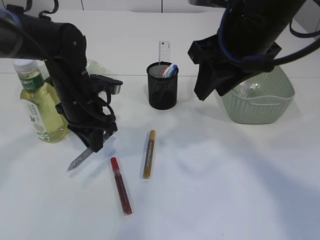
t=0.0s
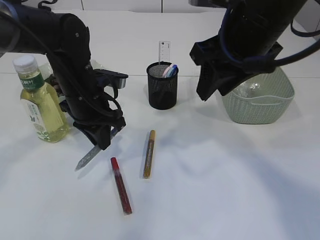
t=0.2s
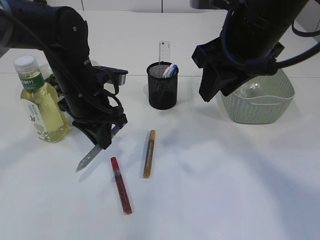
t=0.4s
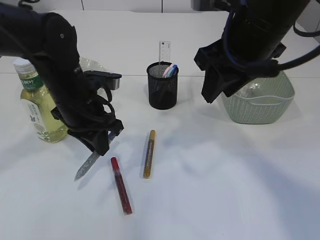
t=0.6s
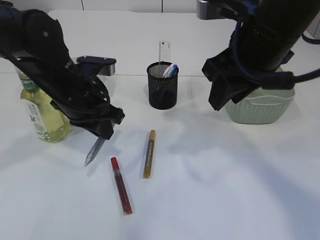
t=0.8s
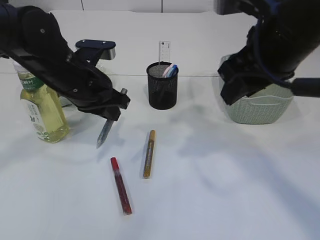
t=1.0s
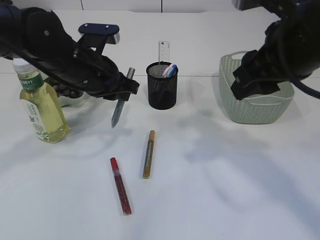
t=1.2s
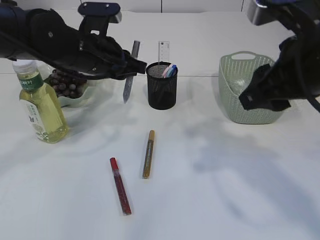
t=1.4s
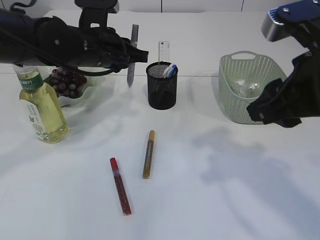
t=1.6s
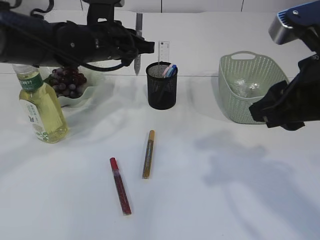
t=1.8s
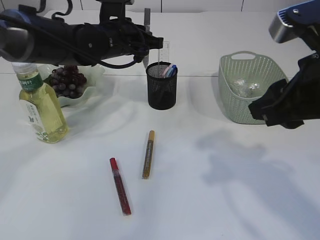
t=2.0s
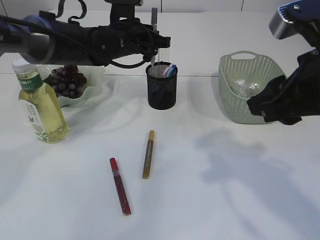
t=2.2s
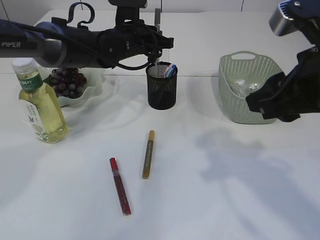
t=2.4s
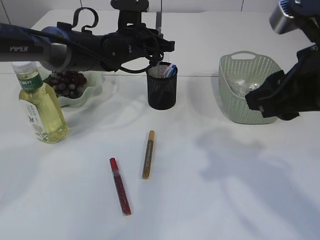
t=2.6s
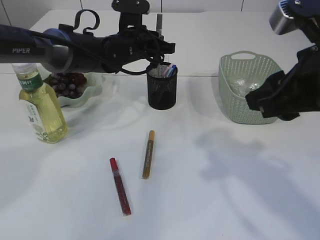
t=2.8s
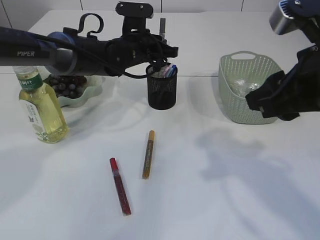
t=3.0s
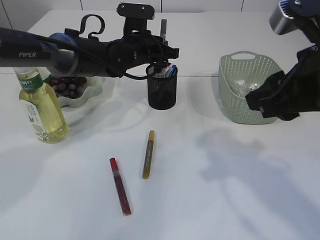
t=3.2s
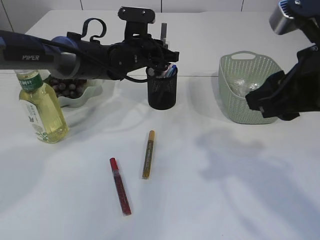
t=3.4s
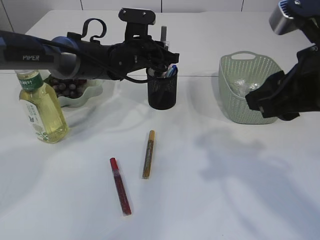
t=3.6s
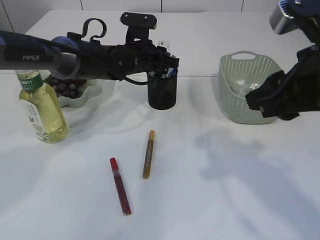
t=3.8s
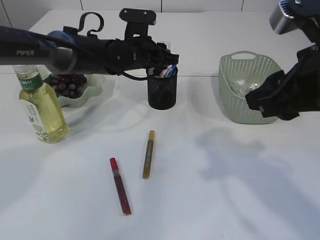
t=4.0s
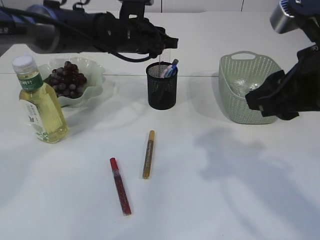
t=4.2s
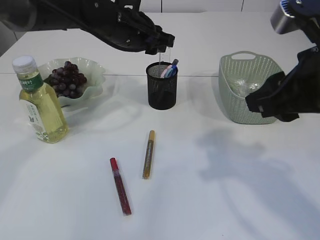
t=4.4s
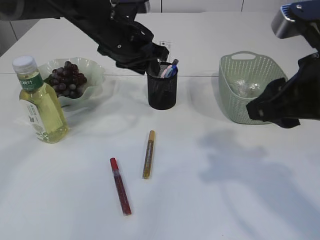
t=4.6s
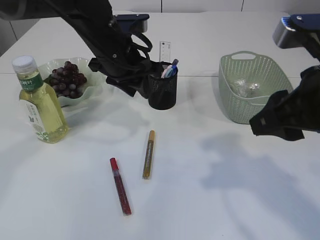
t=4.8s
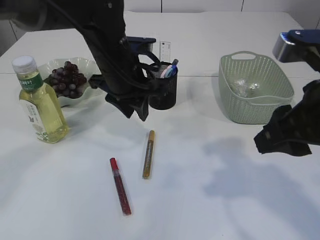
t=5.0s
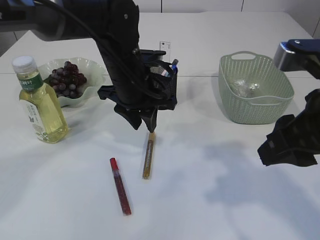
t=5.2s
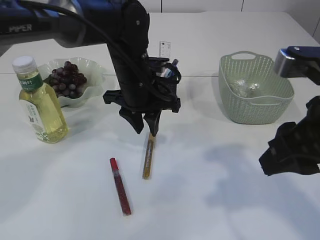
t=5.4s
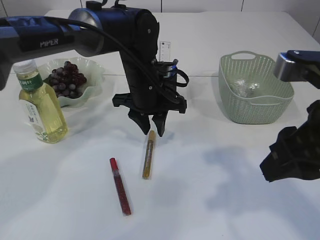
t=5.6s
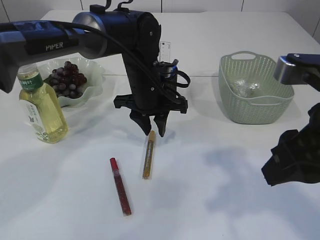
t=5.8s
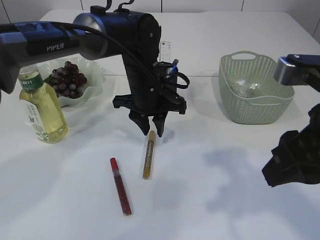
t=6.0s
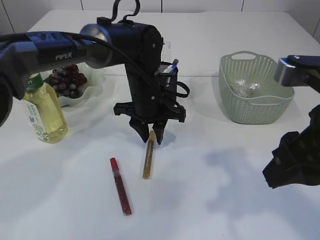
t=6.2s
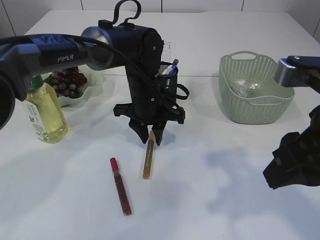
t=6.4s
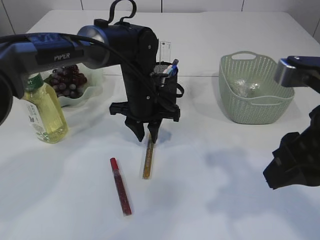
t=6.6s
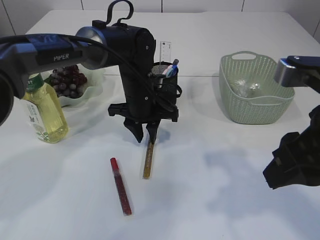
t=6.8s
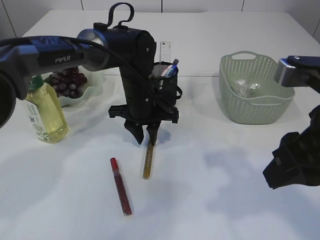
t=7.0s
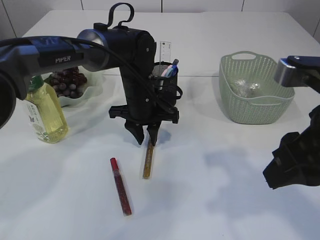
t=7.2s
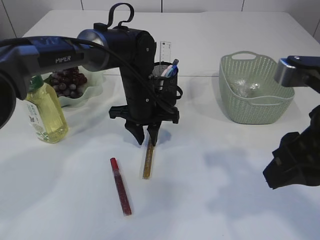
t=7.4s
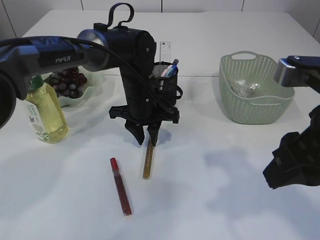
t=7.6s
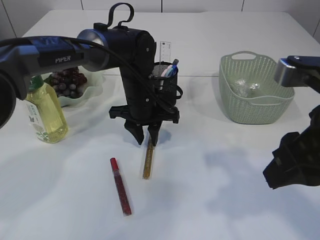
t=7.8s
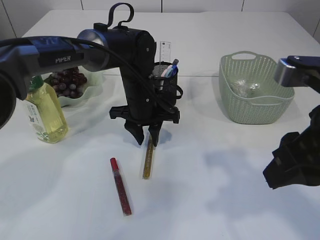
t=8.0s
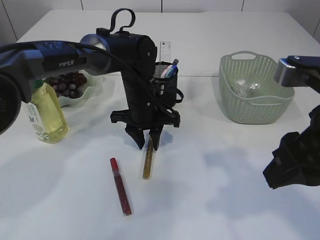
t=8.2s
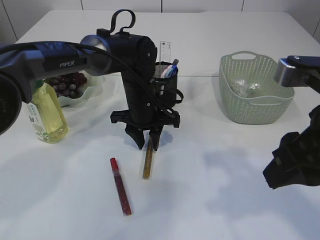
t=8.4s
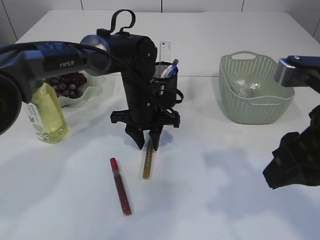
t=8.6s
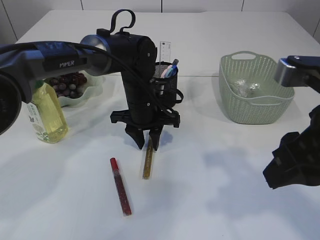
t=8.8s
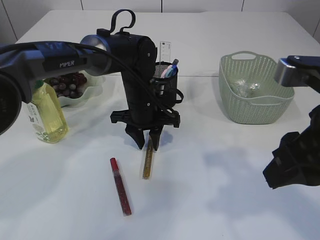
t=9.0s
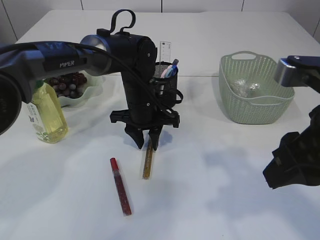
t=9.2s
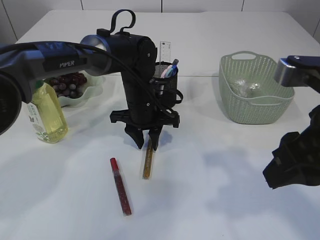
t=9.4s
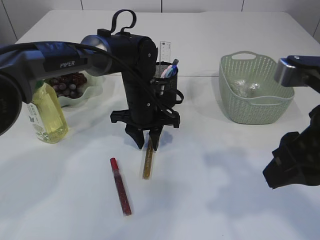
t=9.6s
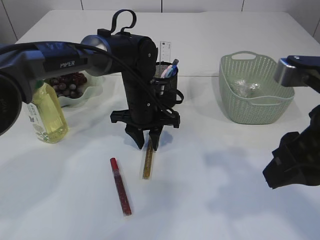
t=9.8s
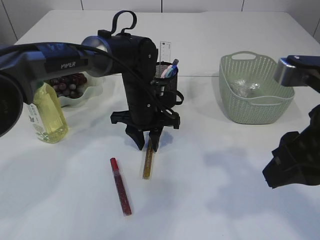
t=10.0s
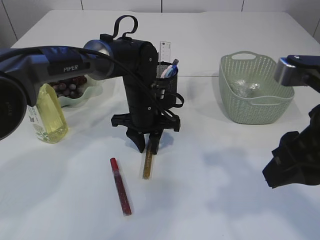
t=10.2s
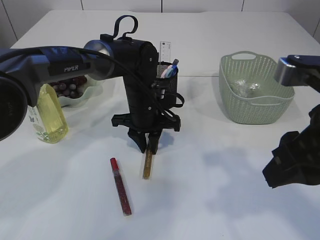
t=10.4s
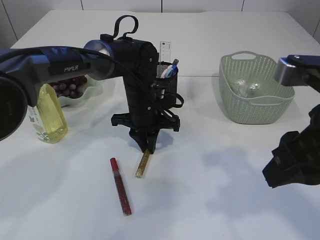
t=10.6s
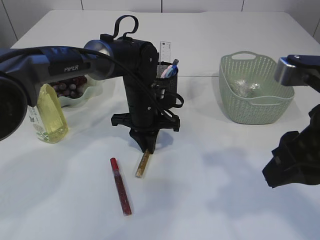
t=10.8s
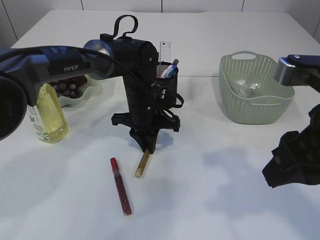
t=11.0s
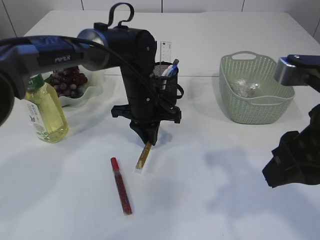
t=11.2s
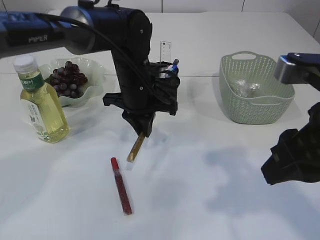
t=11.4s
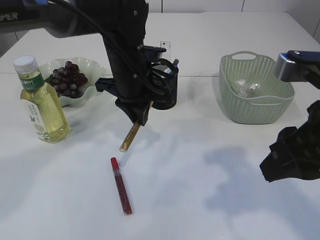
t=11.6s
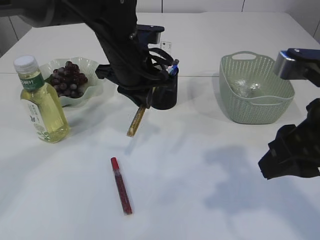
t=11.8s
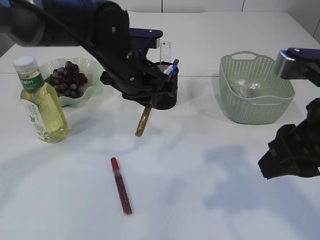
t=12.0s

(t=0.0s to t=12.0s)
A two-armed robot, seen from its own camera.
Step, t=0.6s - t=4.4s: place the silver glue into the pen holder.
Step, t=4.6s - t=11.6s: pick up the yellow glue.
t=0.0s - t=1.6s: The left gripper shifts about 10 cm upward. Meanwhile the right gripper travels backward and to the right by some 10 cm.
t=1.6s - t=3.0s: The left gripper shifts about 10 cm forward and to the right.
t=3.0s - t=4.4s: The left gripper moves upward, some 5 cm.
t=4.4s - t=6.0s: The left gripper shifts some 10 cm downward.
t=6.0s - t=7.6s: The grippers stay close to where they were, moving slightly.
t=7.6s - t=9.0s: Both grippers stay about where they are.
t=9.0s - t=10.4s: Neither gripper changes place.
t=10.4s - t=12.0s: The left gripper travels upward by roughly 10 cm.

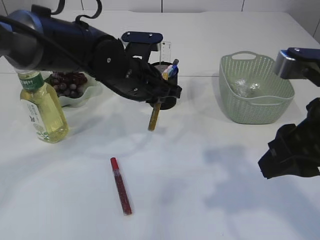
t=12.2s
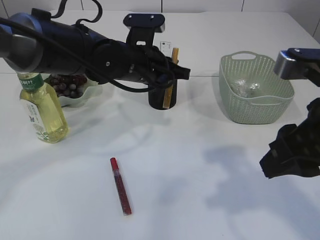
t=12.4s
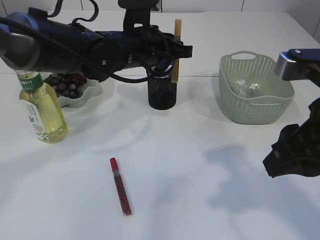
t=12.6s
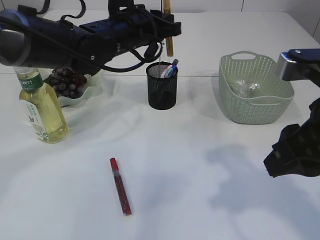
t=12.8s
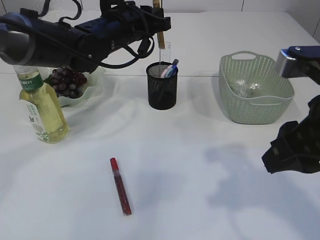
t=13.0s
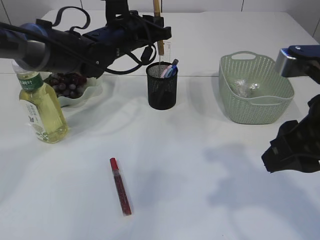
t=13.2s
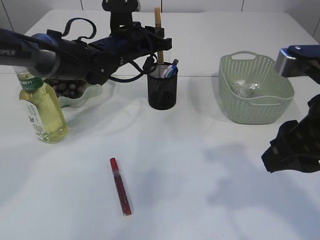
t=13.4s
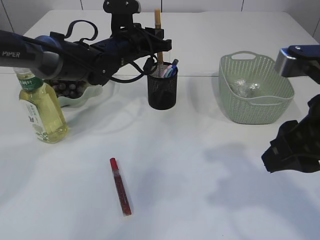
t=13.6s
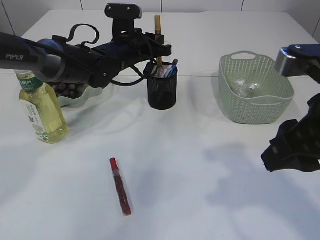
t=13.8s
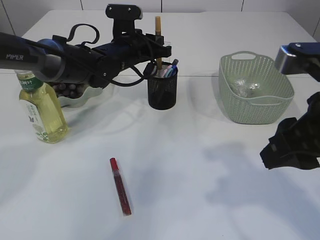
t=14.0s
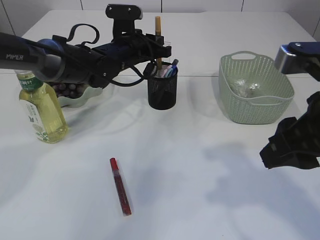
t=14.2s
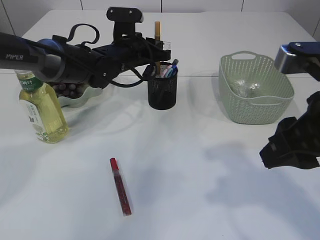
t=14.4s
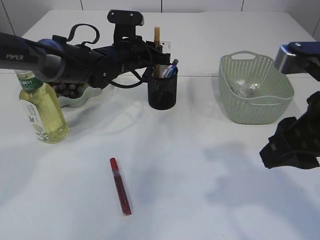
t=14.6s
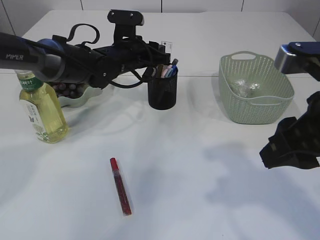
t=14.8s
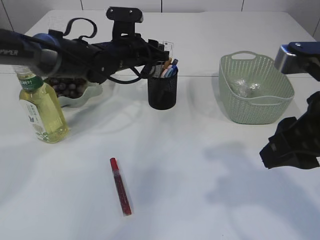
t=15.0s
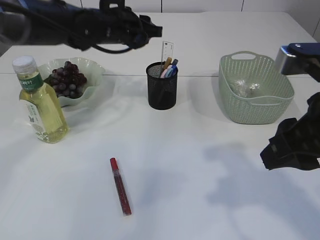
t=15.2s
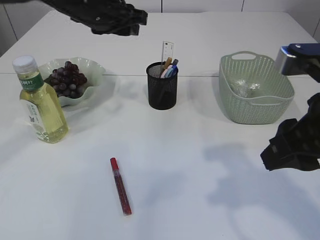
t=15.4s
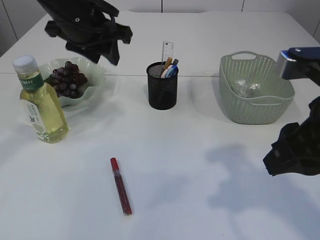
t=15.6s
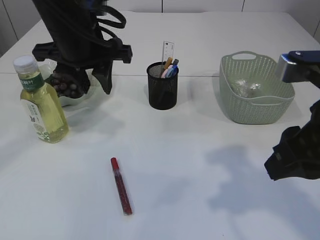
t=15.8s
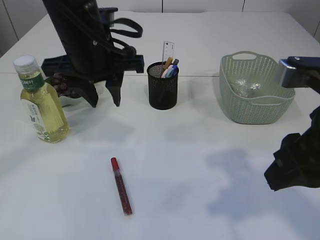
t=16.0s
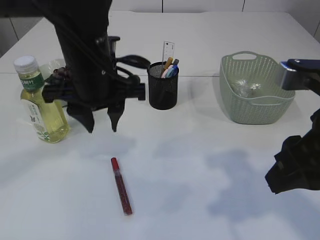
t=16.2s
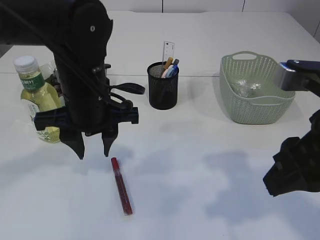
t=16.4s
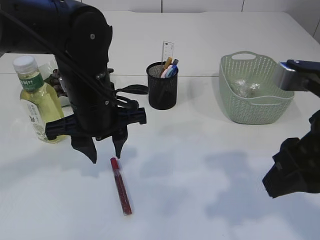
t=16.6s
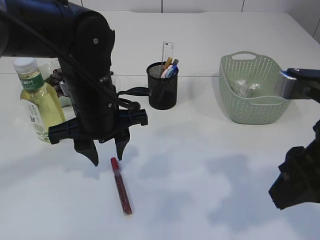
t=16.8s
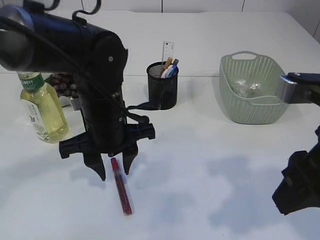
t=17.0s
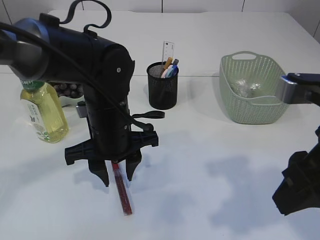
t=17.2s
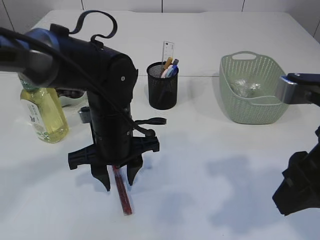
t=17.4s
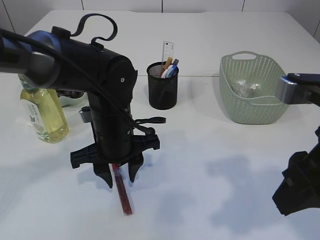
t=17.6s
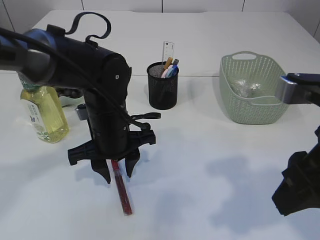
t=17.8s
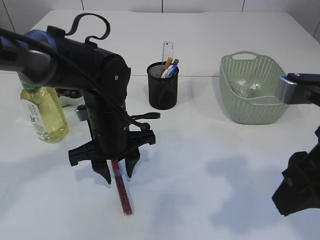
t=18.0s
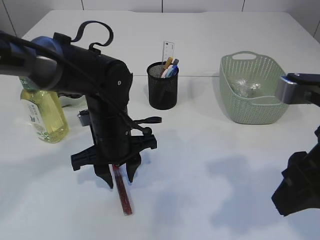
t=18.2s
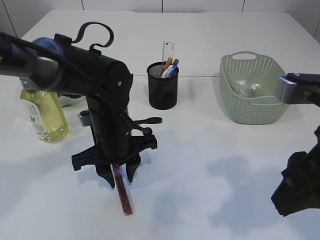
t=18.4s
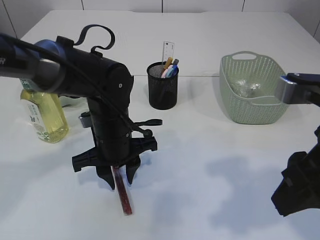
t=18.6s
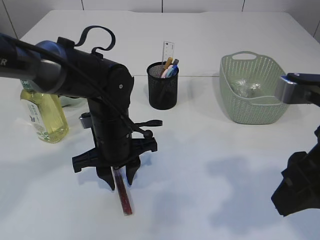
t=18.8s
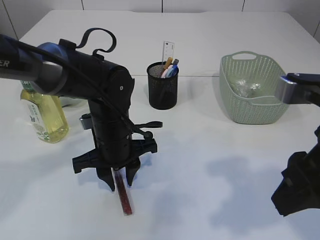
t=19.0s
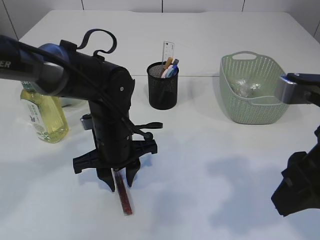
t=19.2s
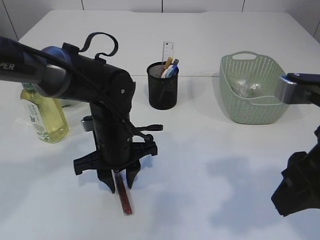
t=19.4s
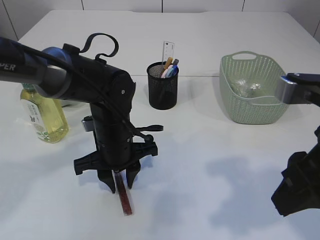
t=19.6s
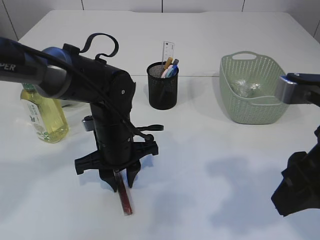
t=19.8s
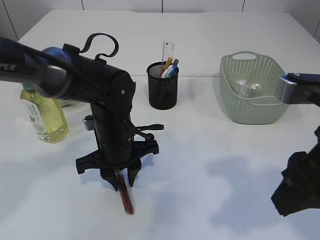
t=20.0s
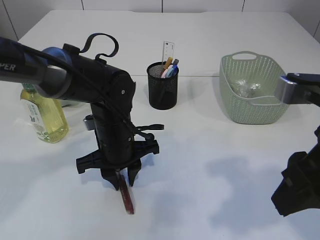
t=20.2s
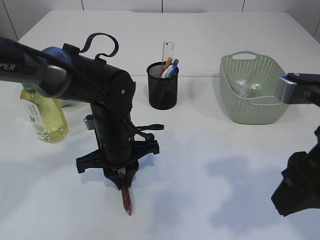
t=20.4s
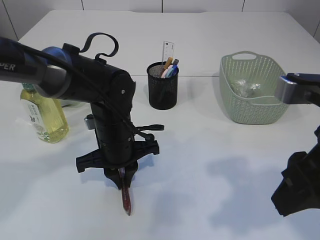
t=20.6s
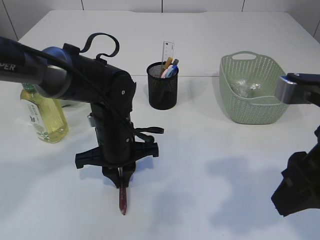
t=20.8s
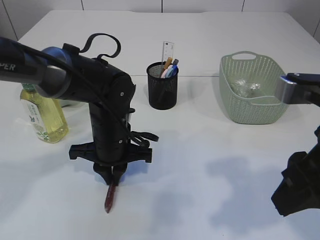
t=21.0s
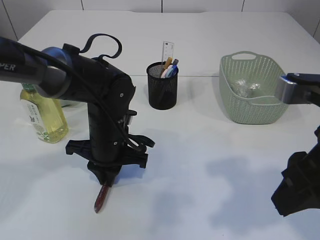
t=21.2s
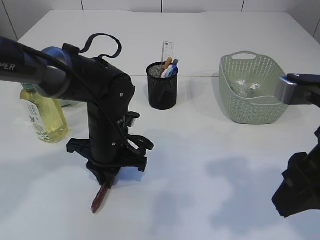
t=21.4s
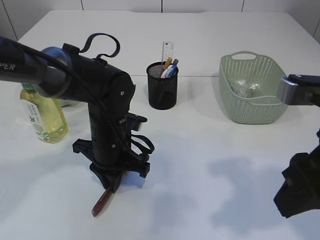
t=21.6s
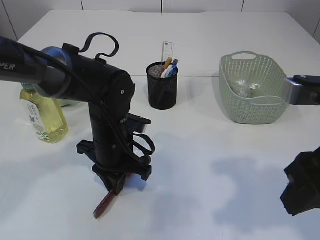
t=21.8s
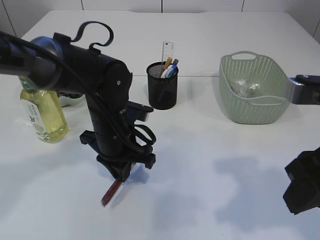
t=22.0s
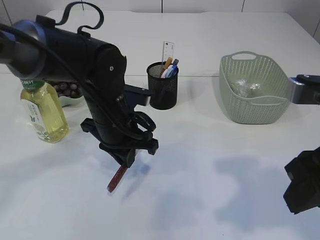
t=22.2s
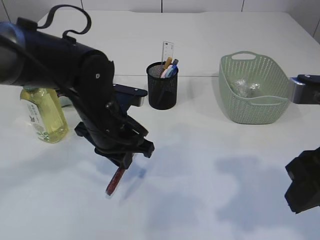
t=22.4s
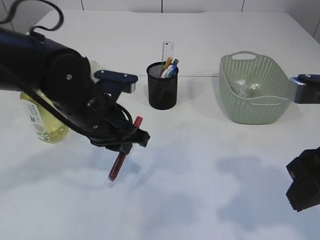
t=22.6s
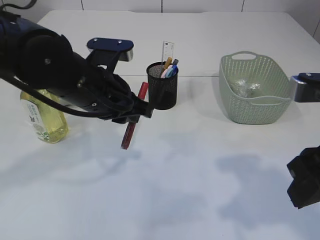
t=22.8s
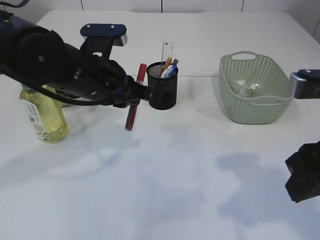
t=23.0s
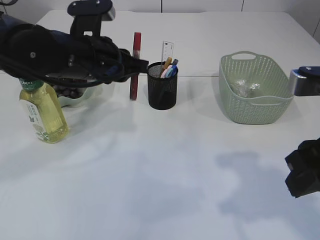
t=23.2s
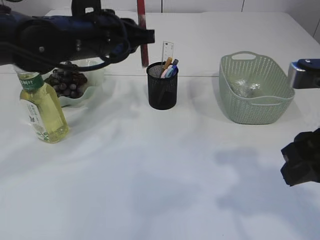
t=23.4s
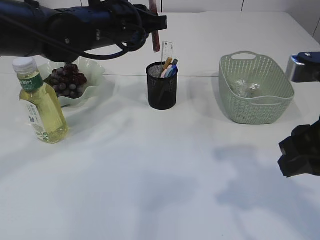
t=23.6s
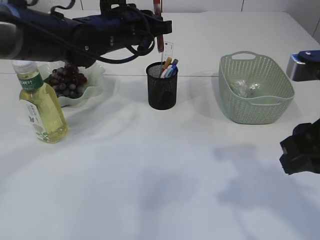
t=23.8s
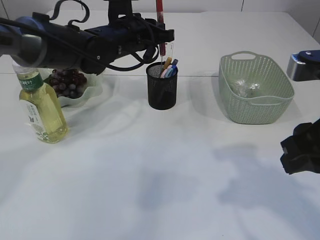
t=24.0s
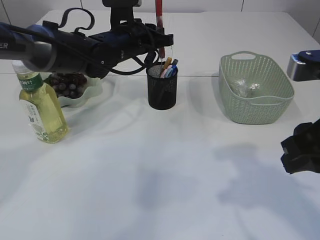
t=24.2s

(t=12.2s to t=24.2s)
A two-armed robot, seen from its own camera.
Step, t=12.2s - t=15.4s: place the yellow glue into the pen holder.
Step, t=15.6s - t=22.8s: pick up the red glue.
t=12.2s - t=13.8s: The left gripper heads forward, covering roughly 10 cm.
t=13.8s - t=15.2s: The left gripper heads upward, covering about 5 cm, and opens its fingers.
t=15.2s - t=16.6s: The left gripper is displaced backward by approximately 15 cm.
t=16.6s - t=18.2s: The left gripper goes roughly 10 cm downward.
t=18.2s - t=19.8s: The grippers stay close to where they were, moving slightly.
t=21.2s - t=22.6s: The left gripper heads upward, covering approximately 5 cm.
t=22.6s - t=24.2s: The left gripper is displaced forward by roughly 15 cm.
